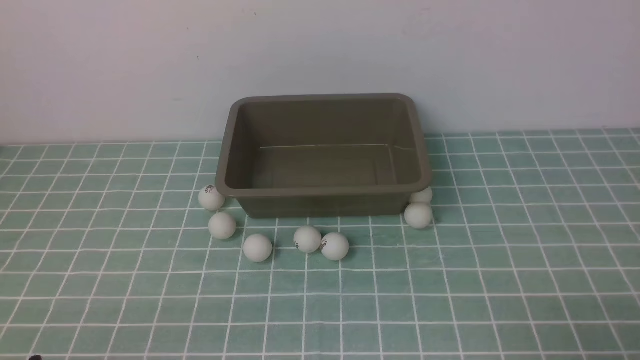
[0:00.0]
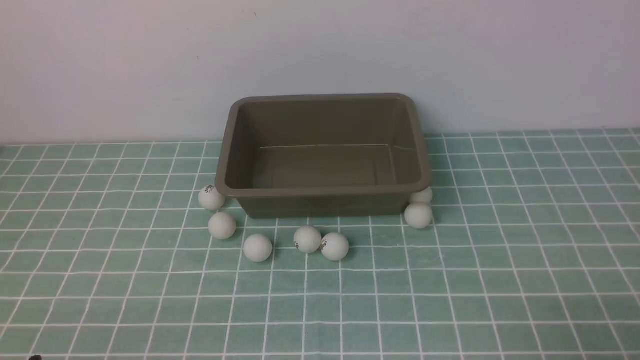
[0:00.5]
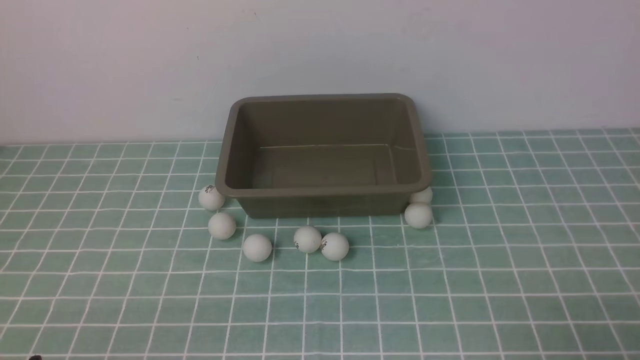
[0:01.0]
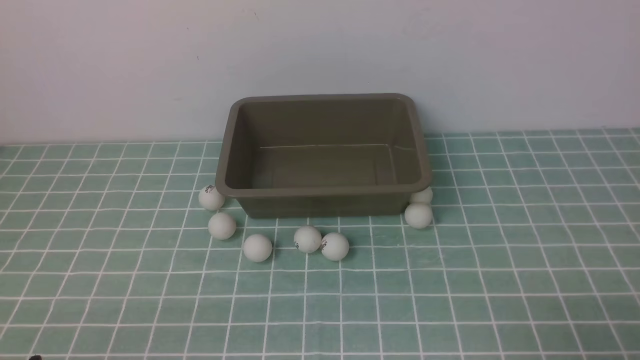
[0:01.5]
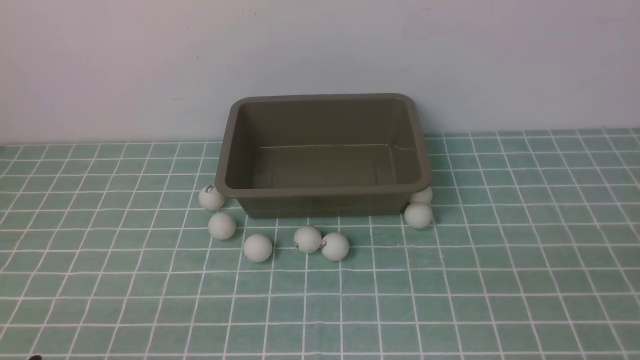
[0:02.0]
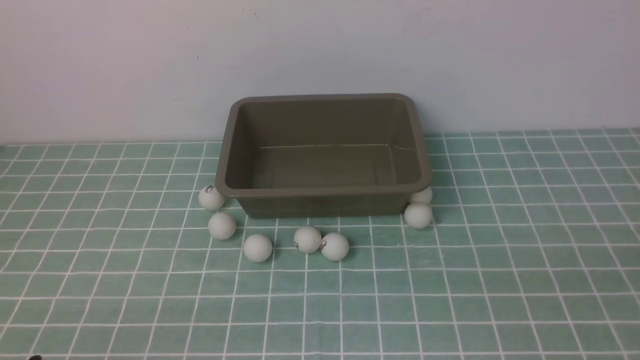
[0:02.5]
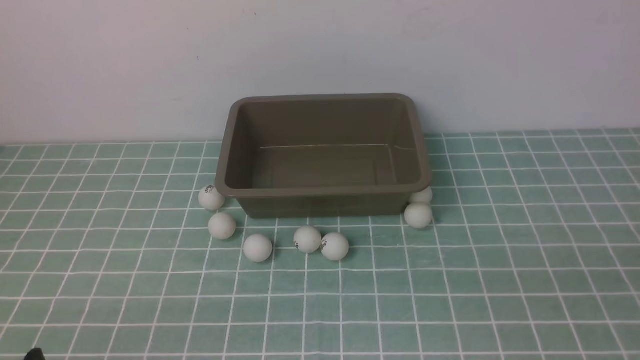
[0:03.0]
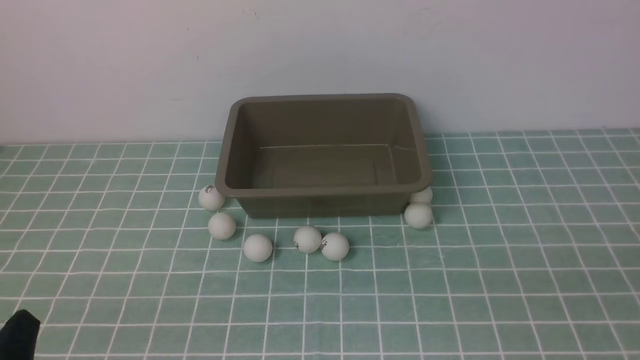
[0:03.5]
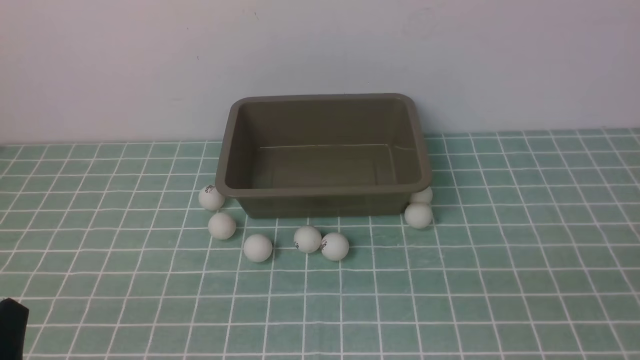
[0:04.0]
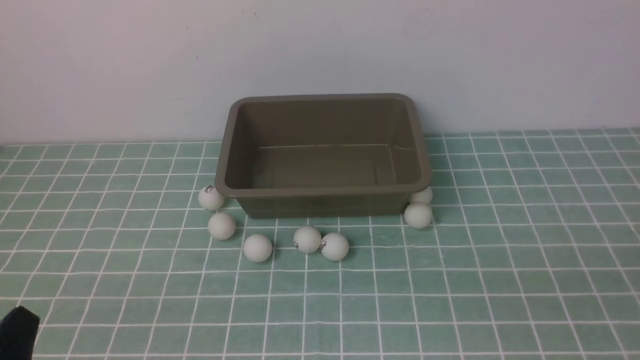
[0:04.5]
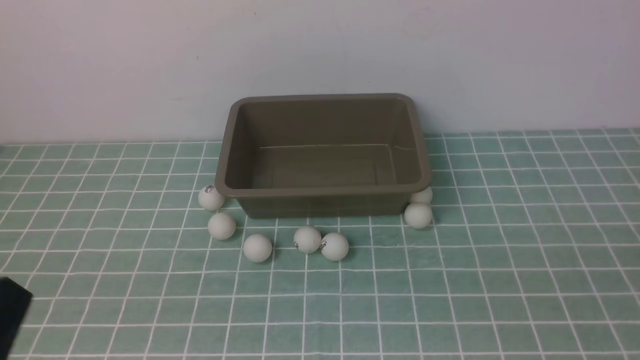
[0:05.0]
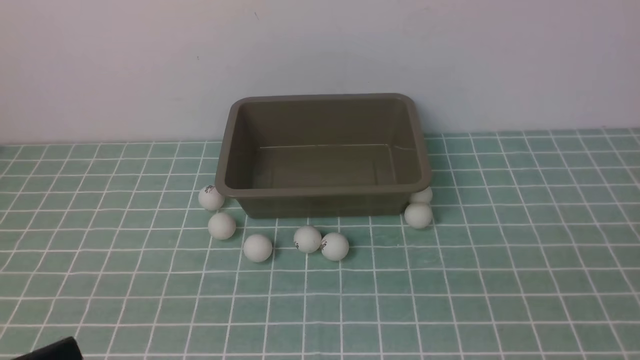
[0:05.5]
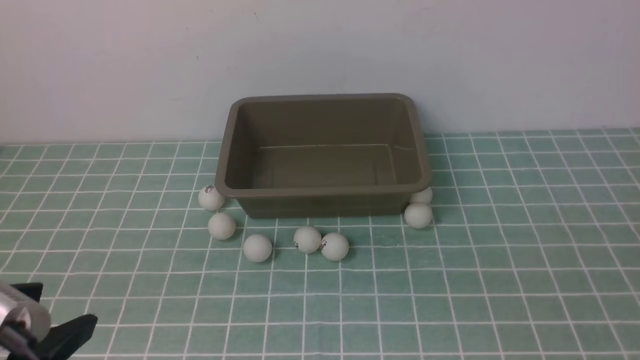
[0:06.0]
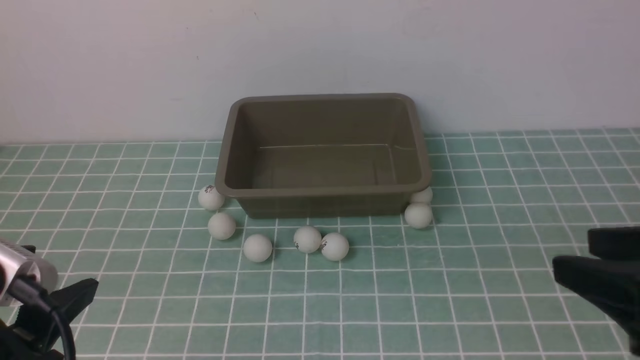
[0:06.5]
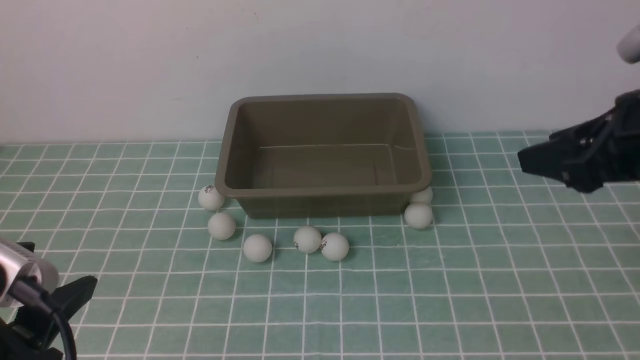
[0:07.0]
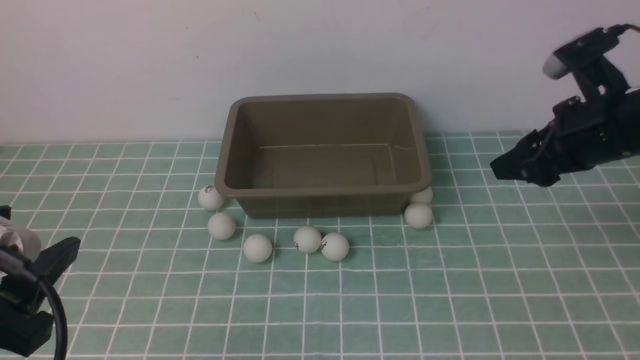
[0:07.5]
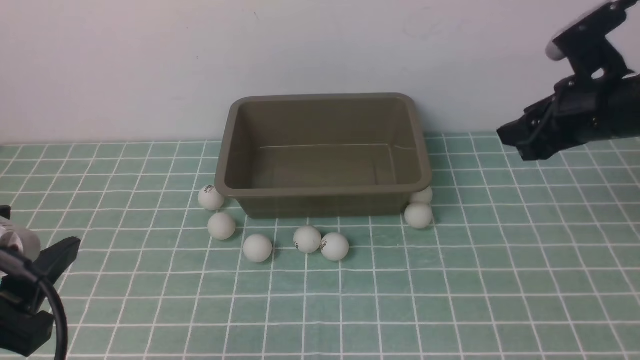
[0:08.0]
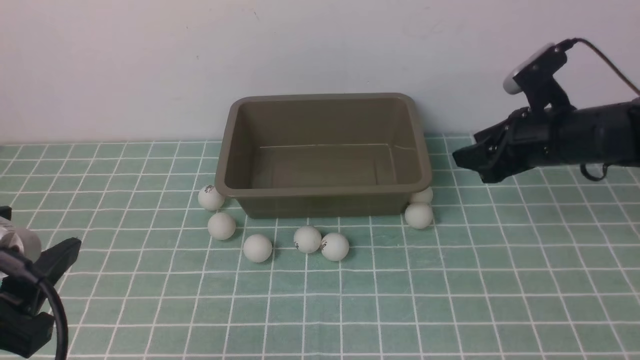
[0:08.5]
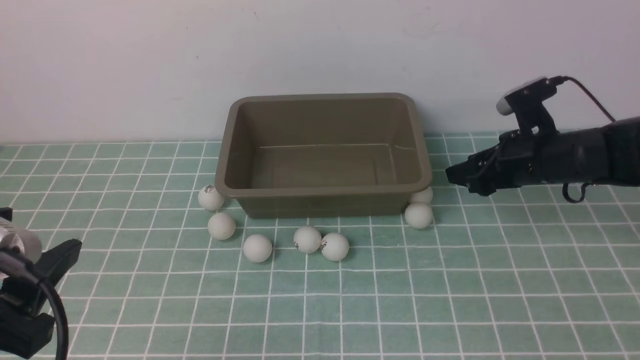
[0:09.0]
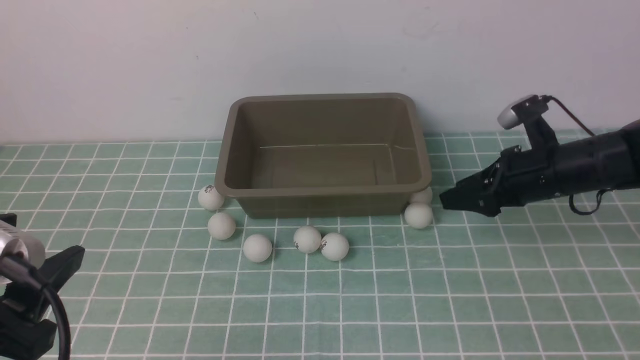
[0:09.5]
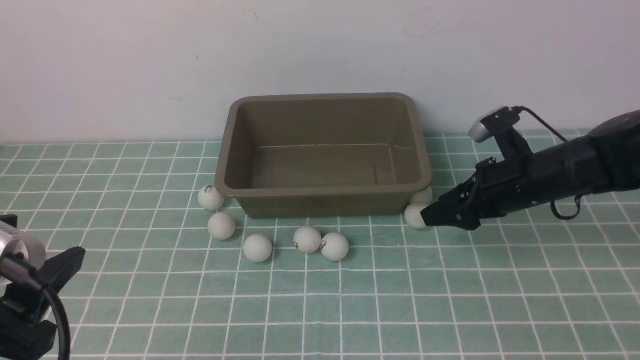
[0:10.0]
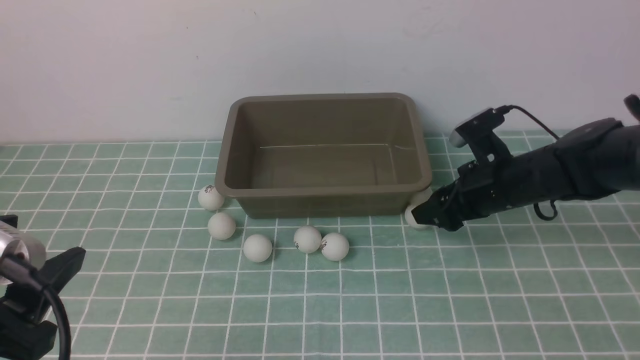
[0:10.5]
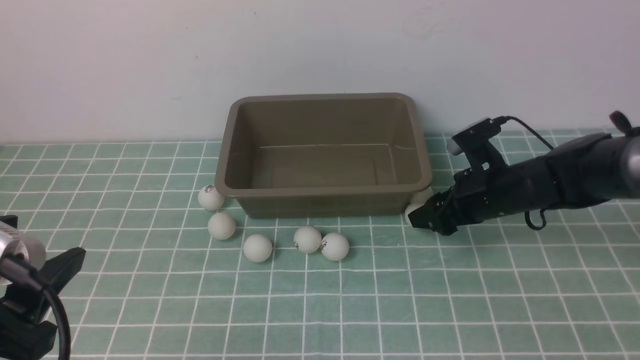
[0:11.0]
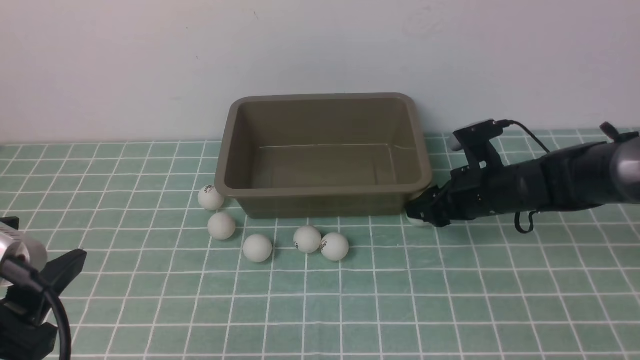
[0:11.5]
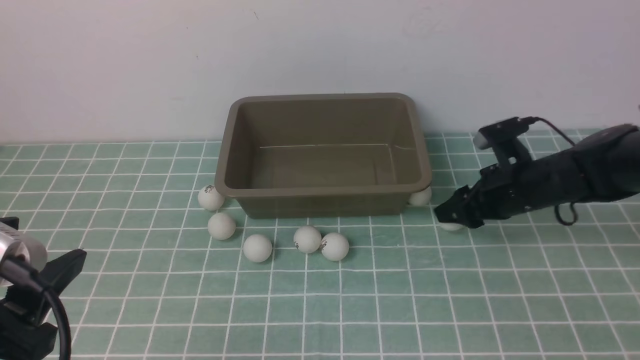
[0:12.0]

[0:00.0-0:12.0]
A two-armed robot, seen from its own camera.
0:04.0 to 0:06.0: The left gripper goes some 10 cm upward, and closes its fingers.
0:06.0 to 0:08.0: The right gripper moves forward, approximately 30 cm; the left gripper opens its fingers.
0:08.0 to 0:10.0: The right gripper goes roughly 10 cm downward.
0:10.0 to 0:12.0: The grippers move only a little.

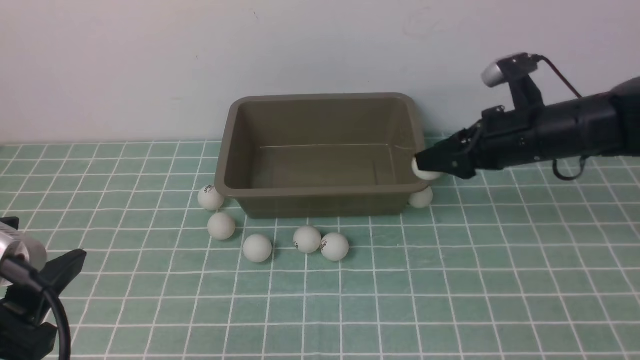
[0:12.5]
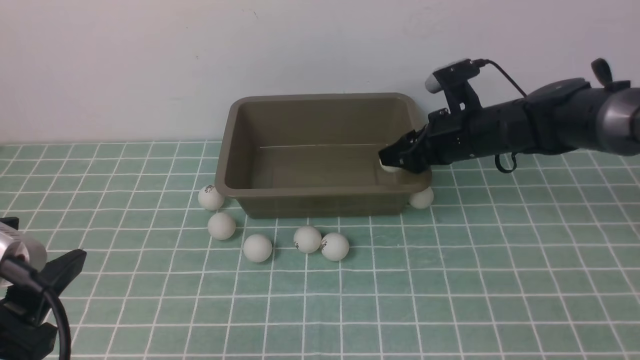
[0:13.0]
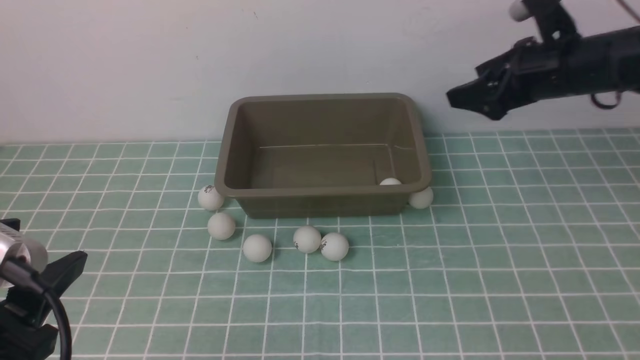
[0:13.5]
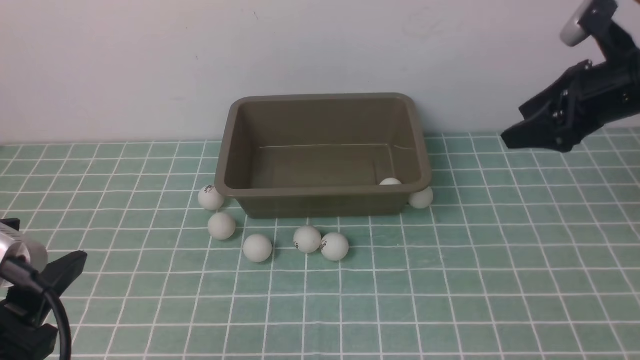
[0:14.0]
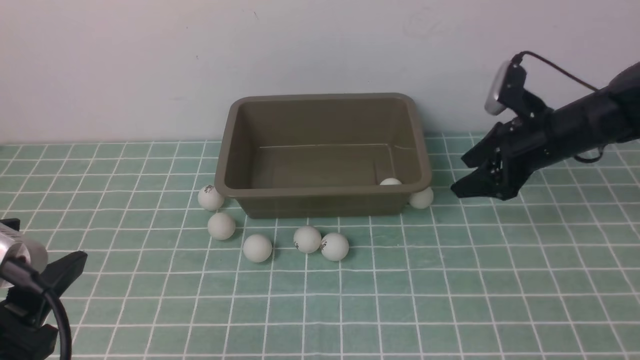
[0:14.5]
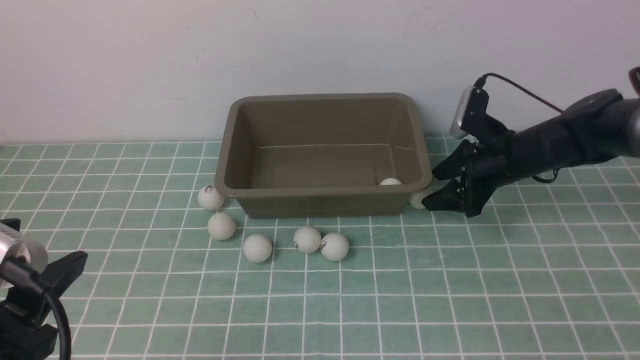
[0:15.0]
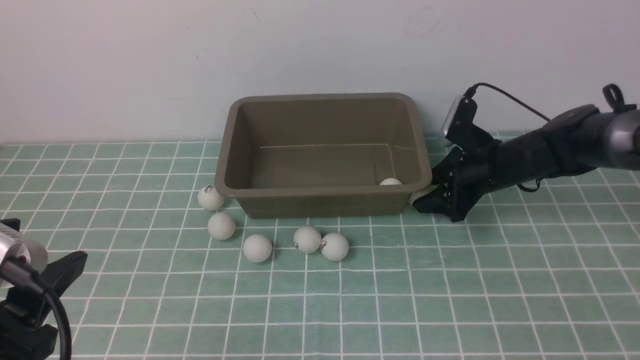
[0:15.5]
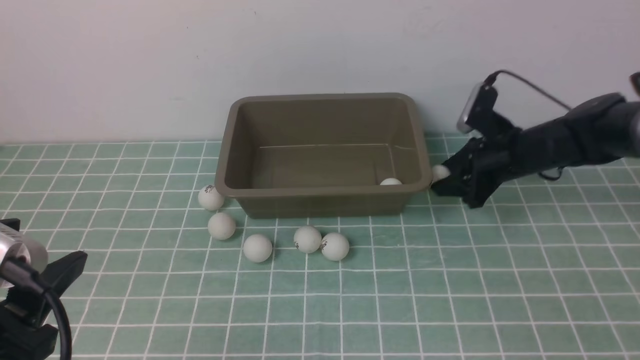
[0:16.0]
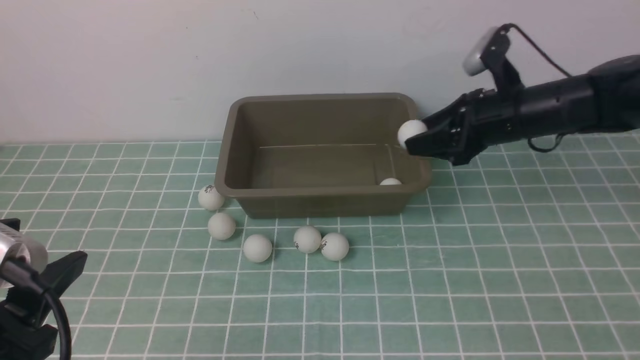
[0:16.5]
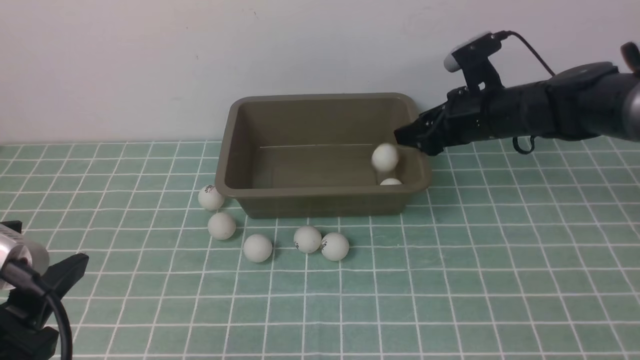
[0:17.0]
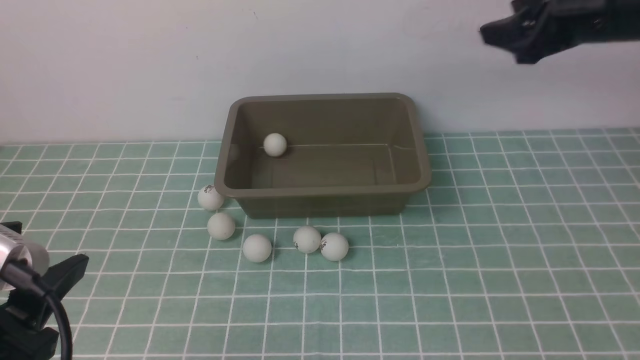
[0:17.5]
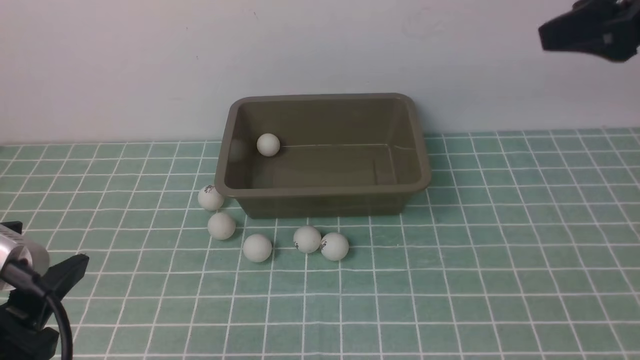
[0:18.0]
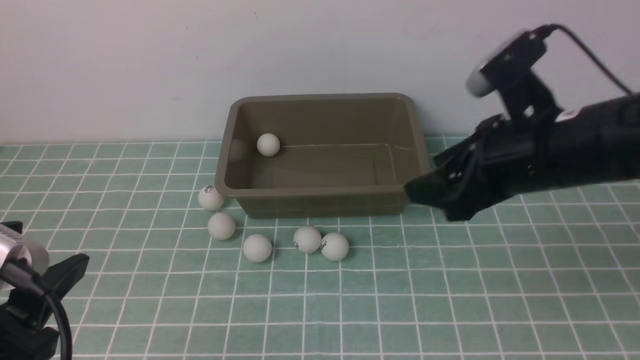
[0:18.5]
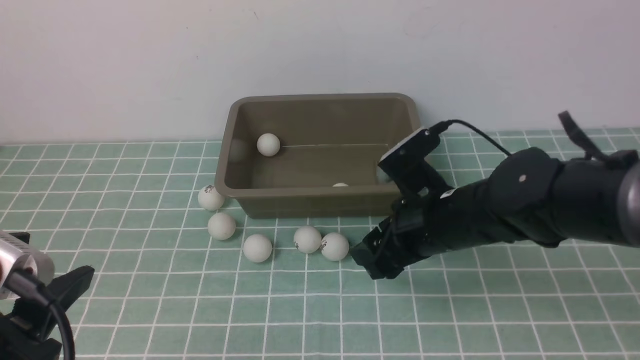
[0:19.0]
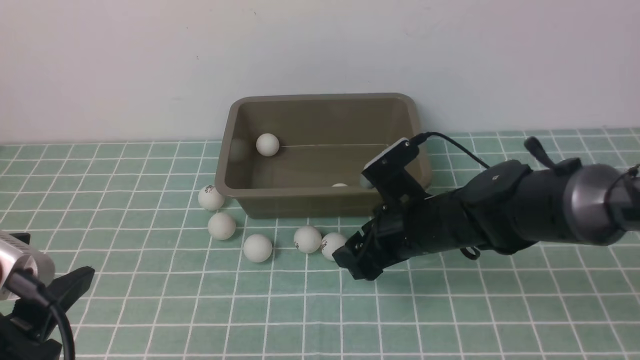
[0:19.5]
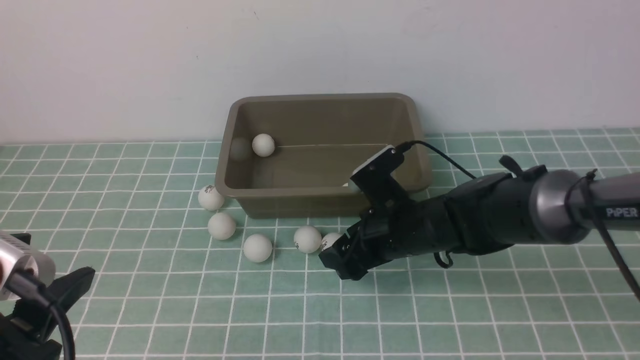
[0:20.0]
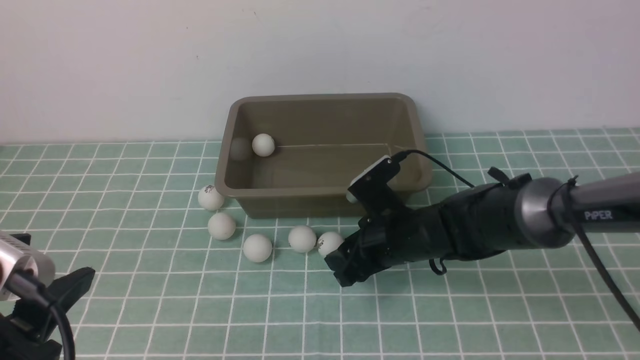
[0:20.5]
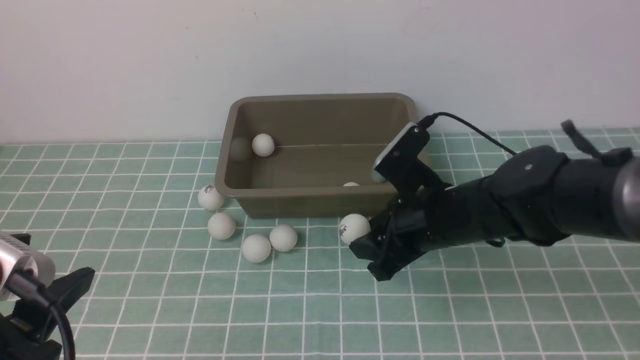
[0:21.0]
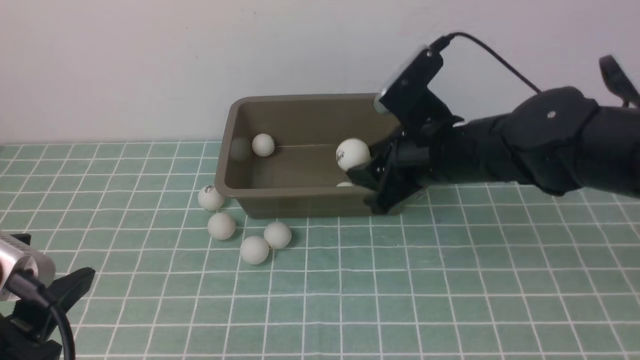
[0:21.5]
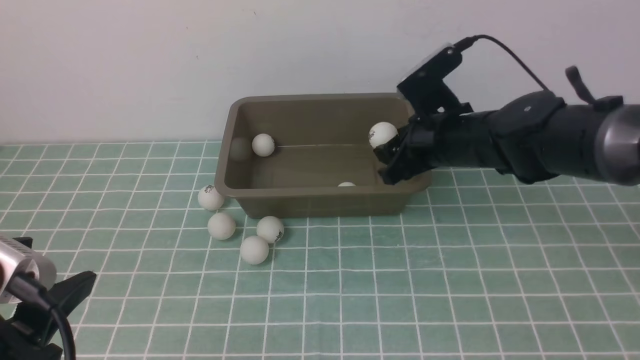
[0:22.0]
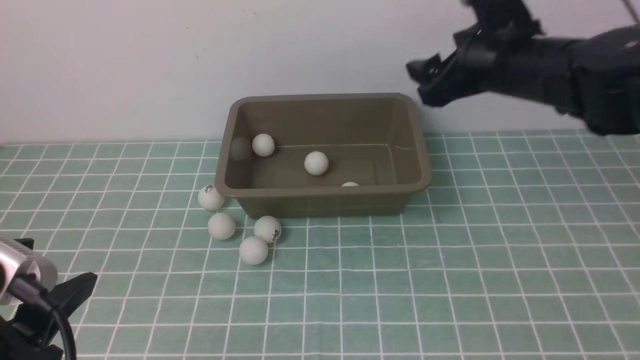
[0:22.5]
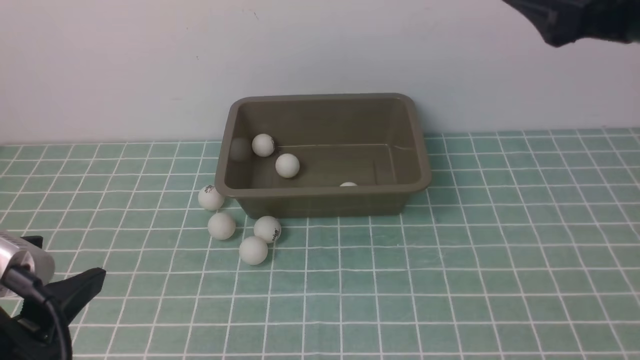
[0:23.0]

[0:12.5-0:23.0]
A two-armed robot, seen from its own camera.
Step, 0:12.5 to 0:13.0: use the right arm to put the table tennis ball into the box.
Step, 0:13.5 to 0:16.0: use the right arm to clamp the table tennis ball closest to it.
Step, 0:16.5 to 0:17.0: use the right arm to put the table tennis ball into the box.
Step, 0:17.5 to 0:20.5: use the right arm to clamp the table tennis ball closest to it.
Step, 0:21.0 to 0:22.0: use the right arm to put the table tennis ball into the box.
0:12.5 to 0:14.5: The right gripper moves approximately 10 cm to the right and comes back, and opens.
0:14.5 to 0:16.5: The right gripper moves some 5 cm downward and comes back, and closes up.
0:16.5 to 0:19.0: The right gripper heads backward and to the left, covering about 15 cm, reaches approximately 20 cm upward, then returns, and opens its fingers.
0:19.0 to 0:21.0: The right gripper closes up.
0:21.0 to 0:23.0: The right gripper shifts roughly 25 cm upward and to the right, and opens up.
